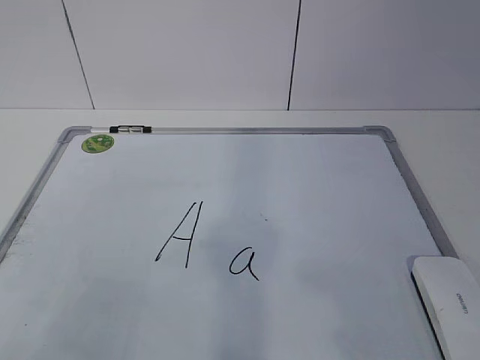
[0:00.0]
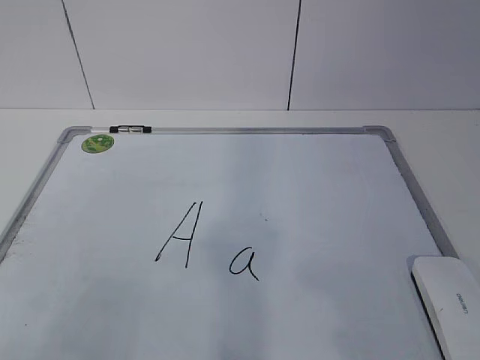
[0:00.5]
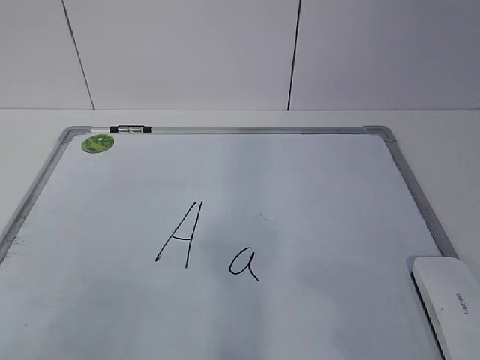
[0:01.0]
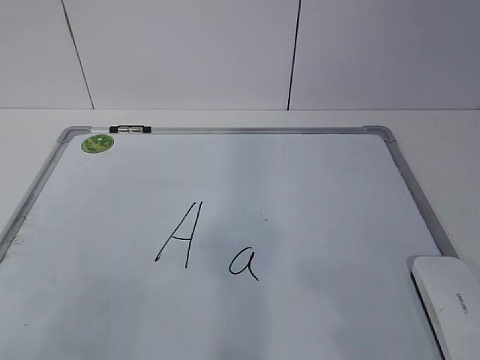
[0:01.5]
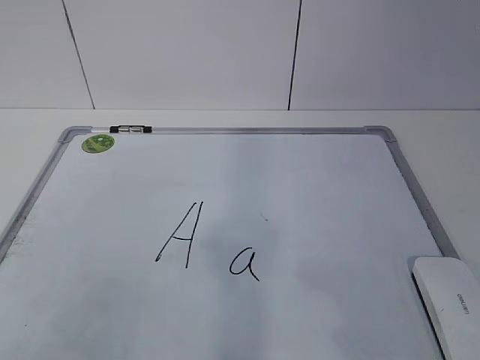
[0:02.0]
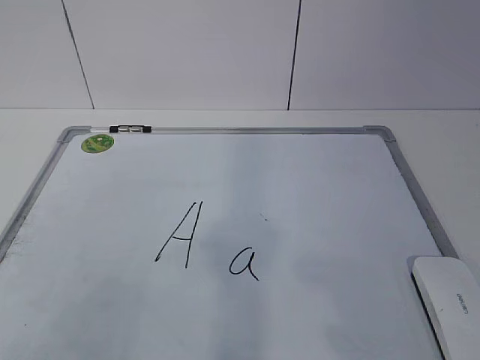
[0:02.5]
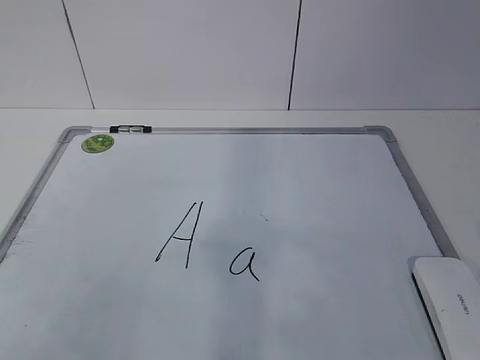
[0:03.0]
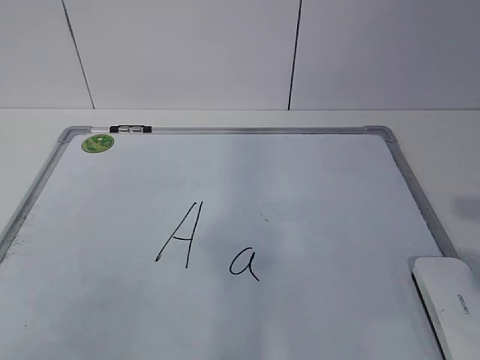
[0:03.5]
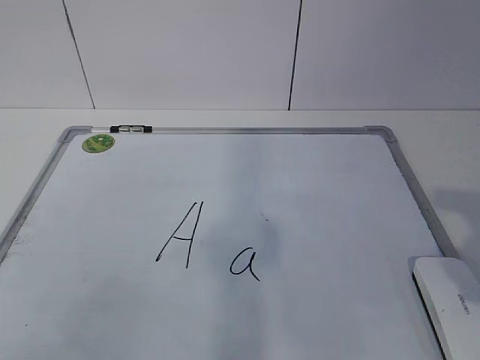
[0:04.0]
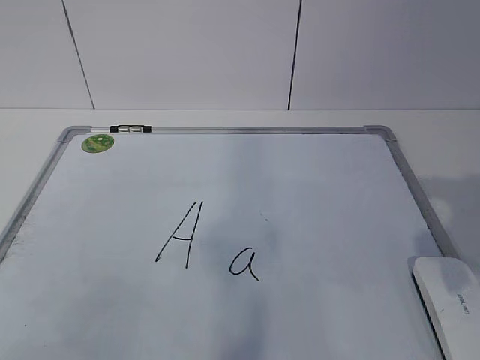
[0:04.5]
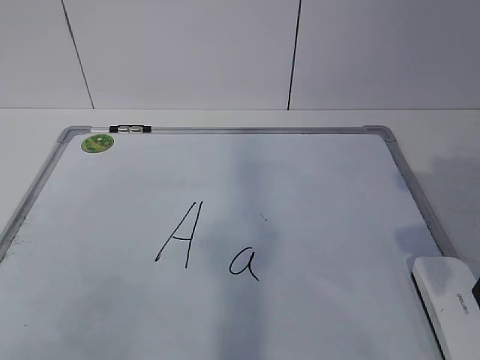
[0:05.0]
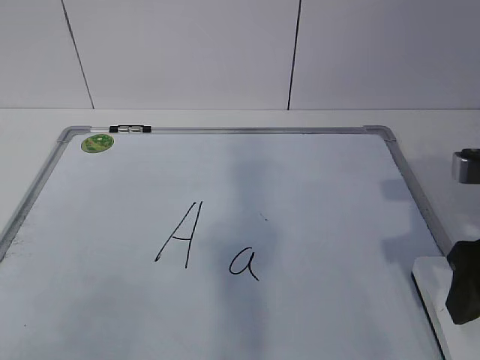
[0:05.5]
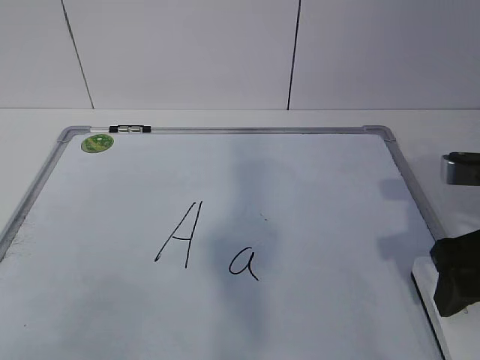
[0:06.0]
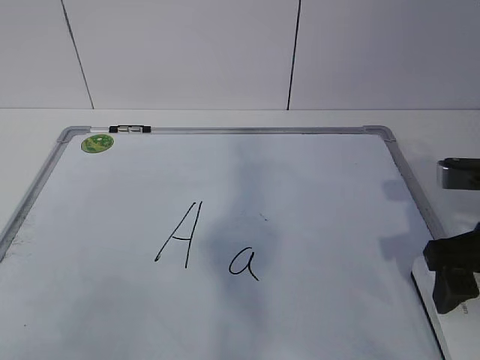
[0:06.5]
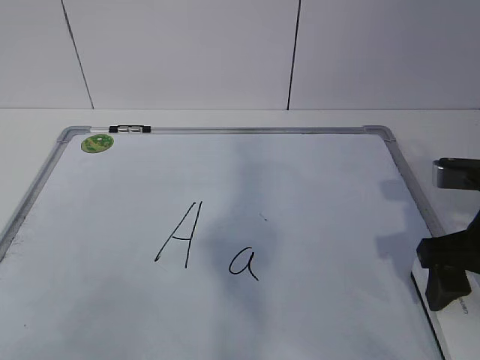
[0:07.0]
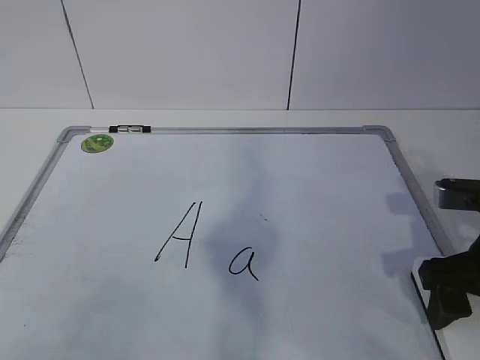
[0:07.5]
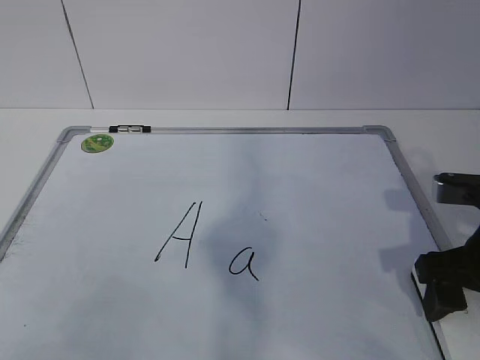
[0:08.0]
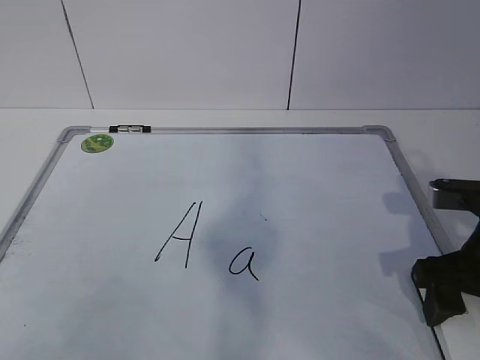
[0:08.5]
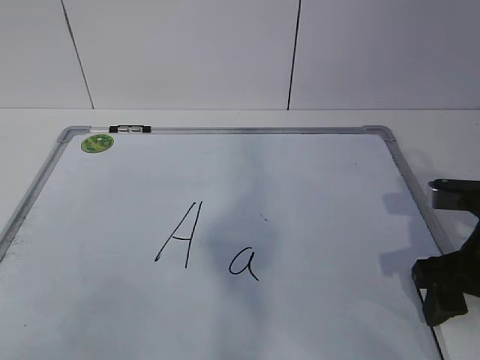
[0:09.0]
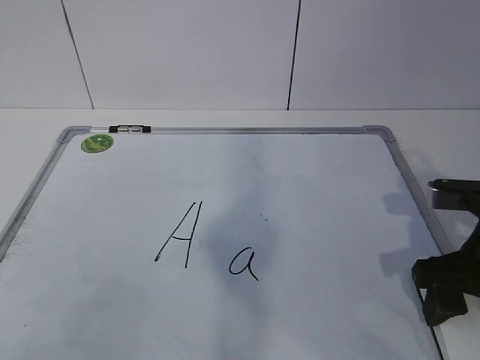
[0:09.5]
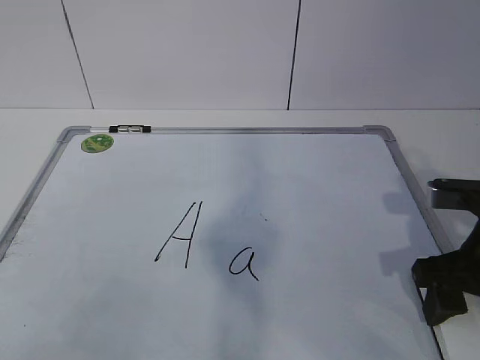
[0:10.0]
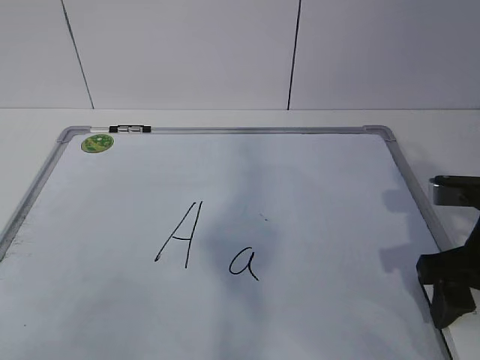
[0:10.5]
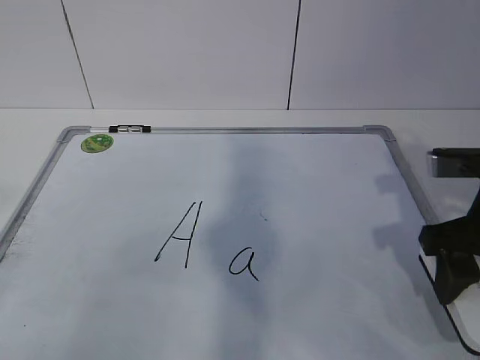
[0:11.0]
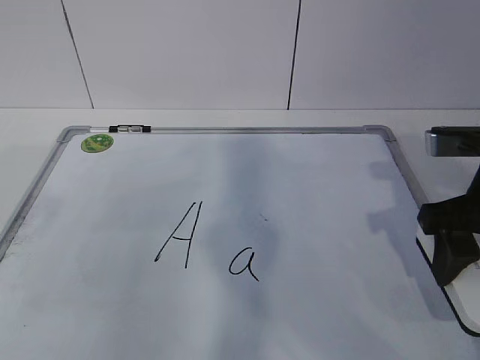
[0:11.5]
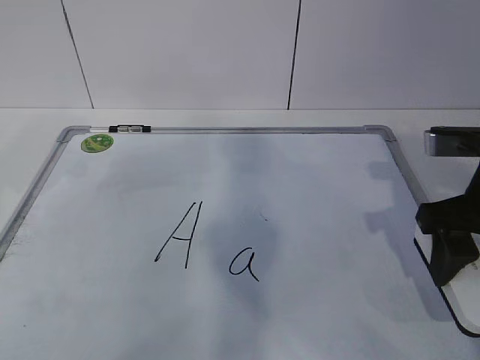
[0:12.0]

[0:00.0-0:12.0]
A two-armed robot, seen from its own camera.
Task of the whole recording: pick up the eraser on the blackboard and erase the letter "a".
Step, 0:00.0 to 0:07.0: Grab the eraser with your right hand.
Step, 0:07.5 to 0:12.0: Hold the drawing board steady with your left hand.
0:04.0 to 0:06.0: The right gripper is displaced forward and downward by some 15 cm.
0:06.0 to 0:08.0: There are only small adjustments of the grippers.
0:08.0 to 0:10.0: The right gripper closes its fingers.
0:10.0 to 0:12.0: The right gripper is displaced upward by some 5 cm.

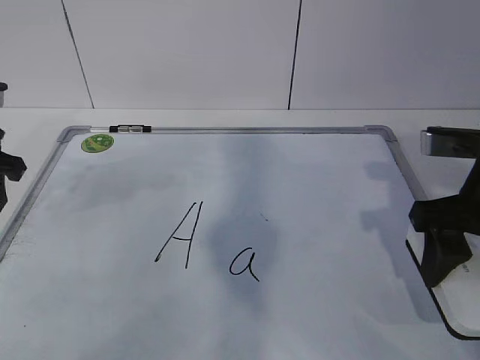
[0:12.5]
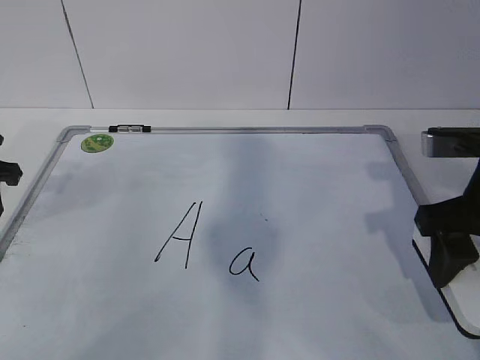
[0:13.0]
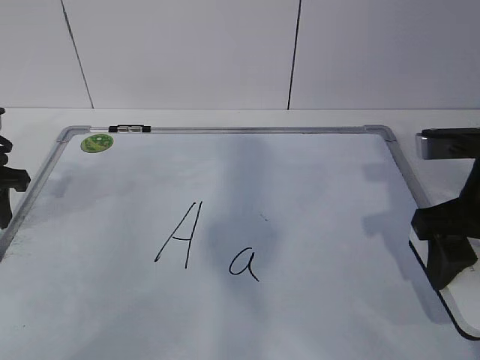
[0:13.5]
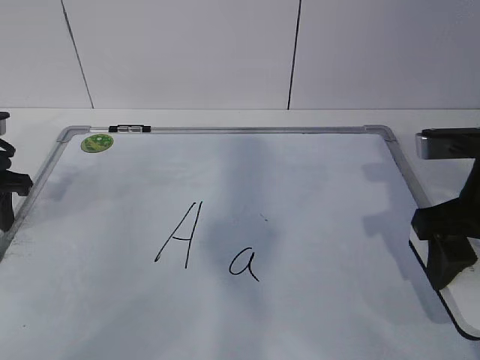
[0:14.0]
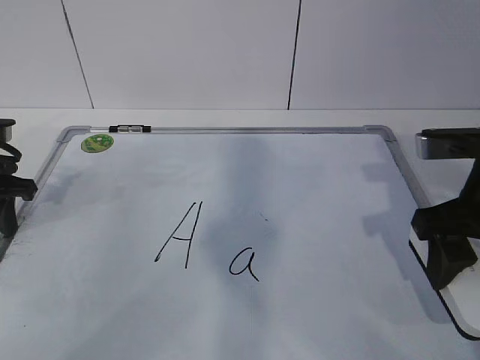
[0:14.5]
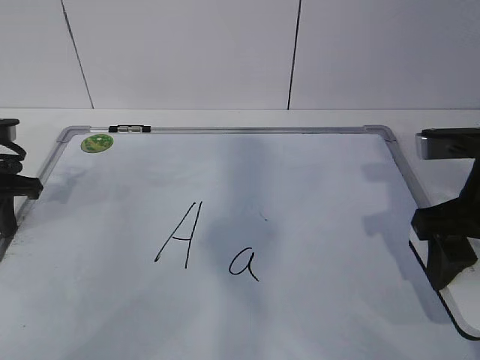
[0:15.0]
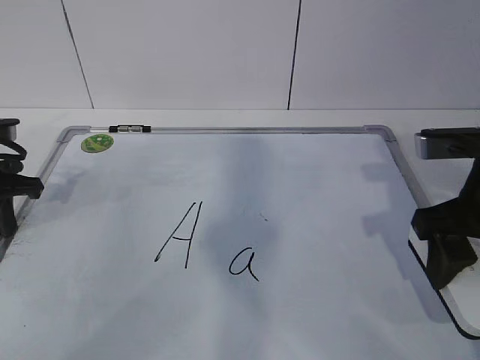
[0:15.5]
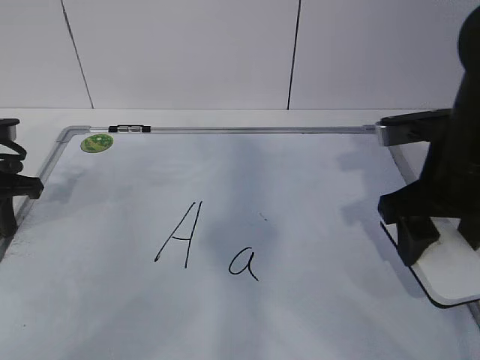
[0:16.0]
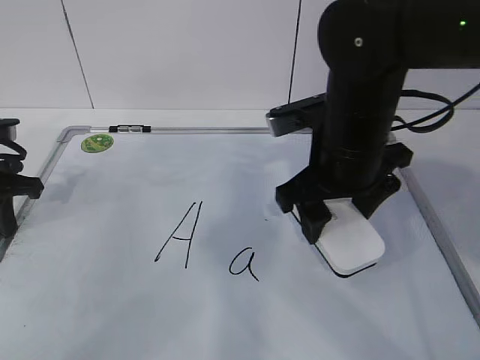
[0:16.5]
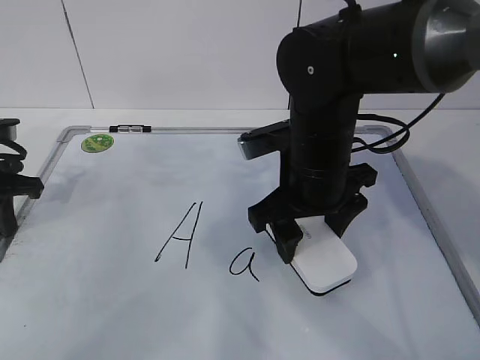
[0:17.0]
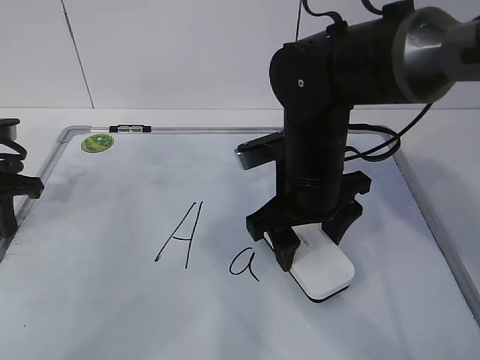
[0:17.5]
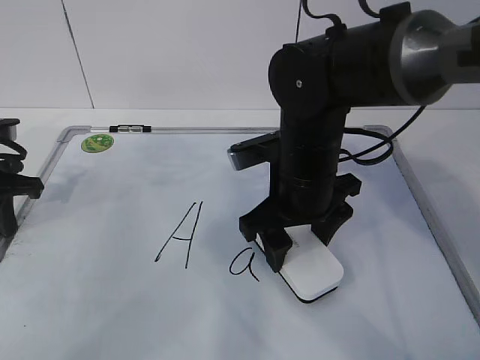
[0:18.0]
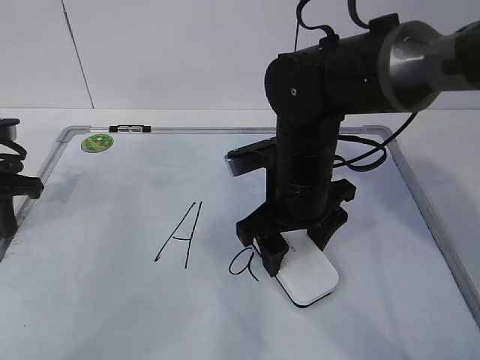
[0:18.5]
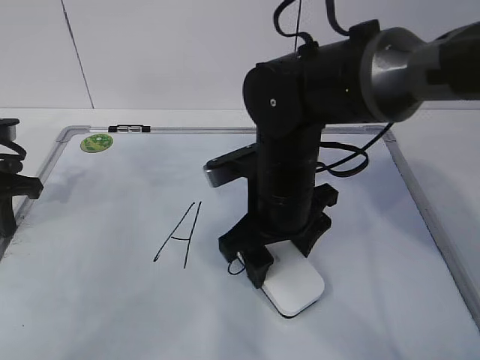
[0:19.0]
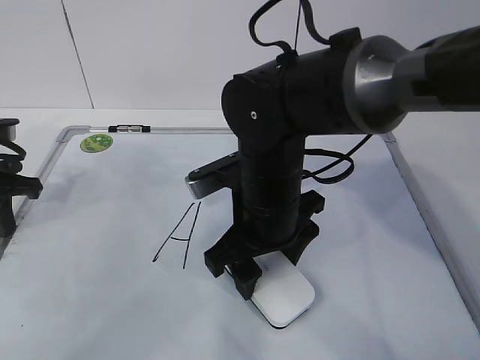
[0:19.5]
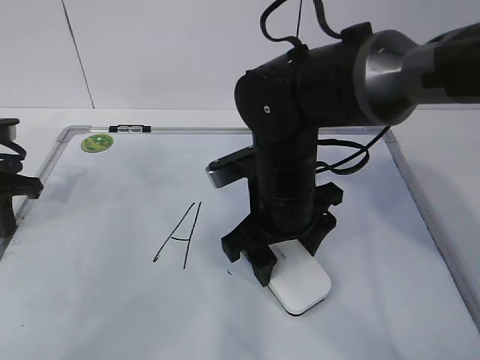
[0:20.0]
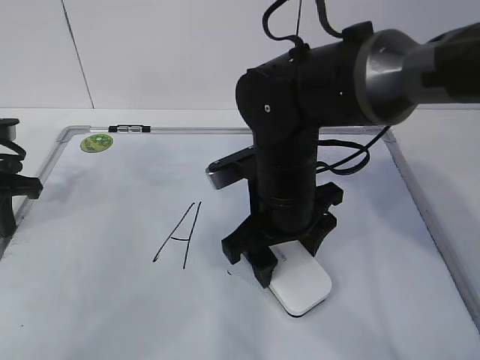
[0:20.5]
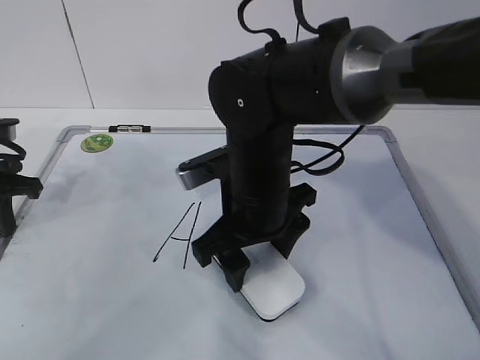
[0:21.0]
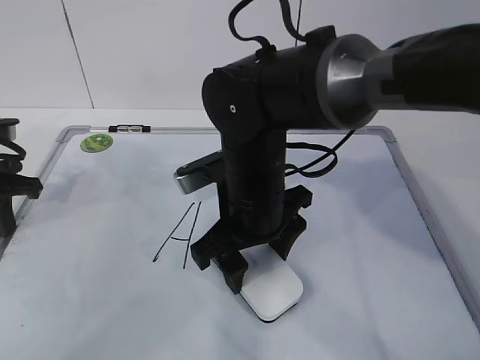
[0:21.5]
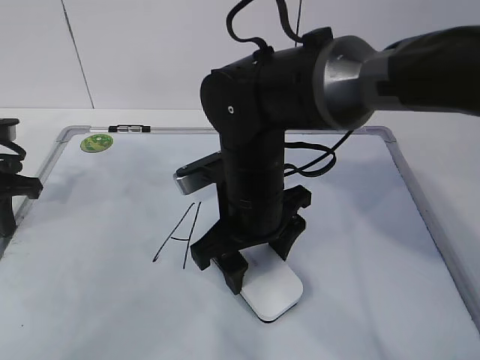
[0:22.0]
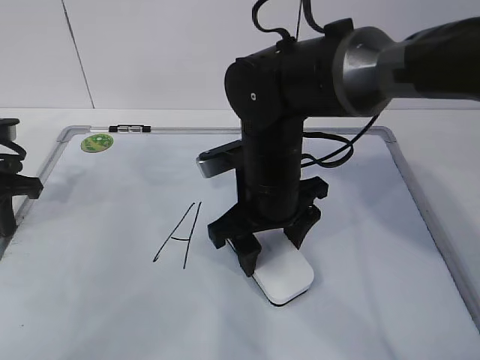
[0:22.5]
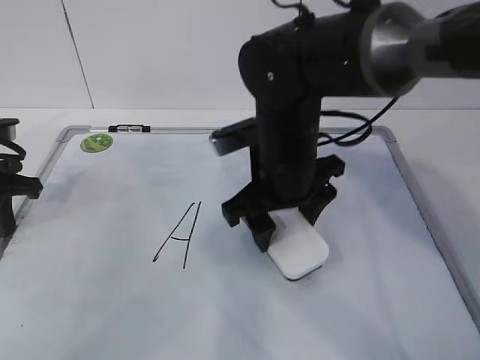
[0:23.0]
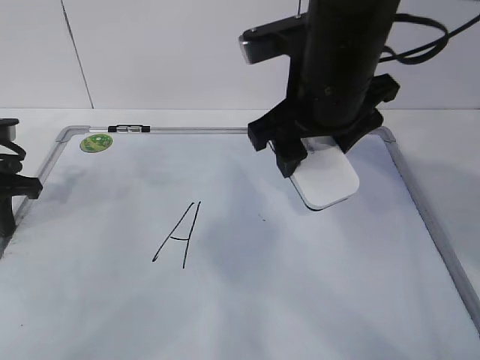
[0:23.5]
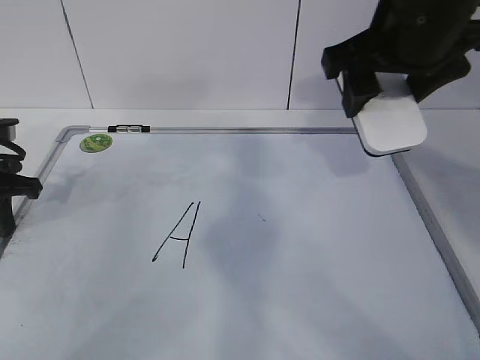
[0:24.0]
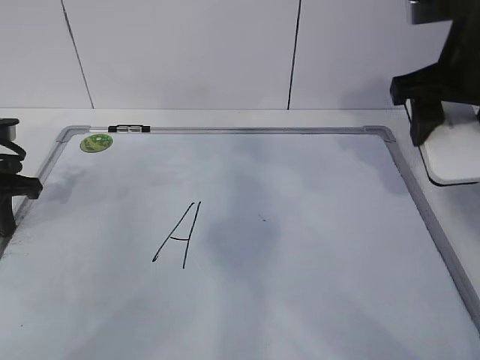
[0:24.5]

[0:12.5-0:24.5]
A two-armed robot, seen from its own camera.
Task of the whole recording: pick up the eraser on the blackboard and erase the letter "a".
Step, 0:12.5 to 0:19.0: Erase the letter a with your right hand.
0:12.5 to 0:14.5: The left gripper moves downward, roughly 5 cm.
0:14.5 to 0:16.5: The right gripper heads to the left and forward, covering approximately 15 cm. The left gripper closes its fingers.
0:16.5 to 0:18.5: The right gripper shifts about 5 cm downward.
0:18.5 to 0:22.5: There are only small adjustments of the grippers.
0:22.5 to 0:24.5: The right gripper shifts about 20 cm to the right and upward.

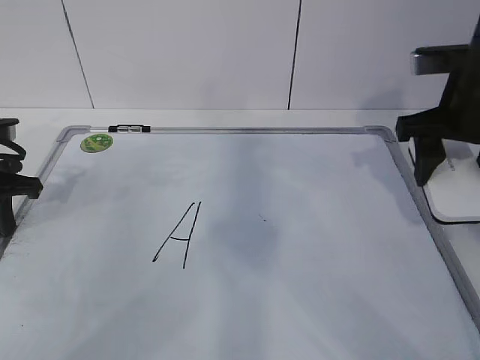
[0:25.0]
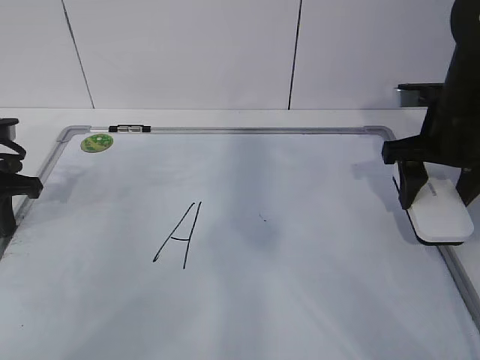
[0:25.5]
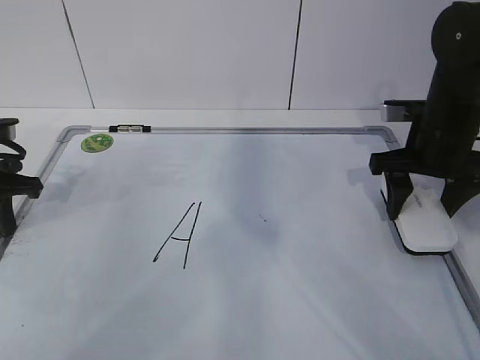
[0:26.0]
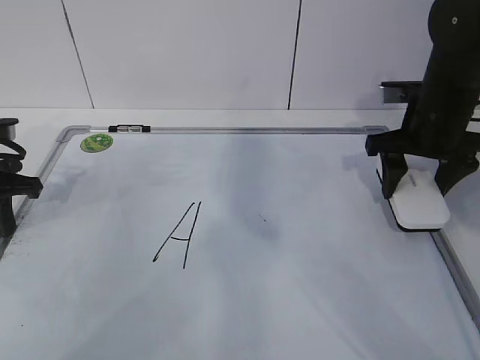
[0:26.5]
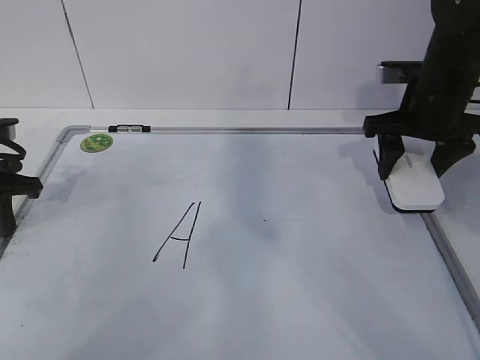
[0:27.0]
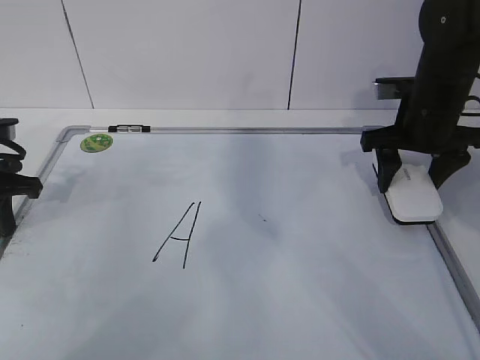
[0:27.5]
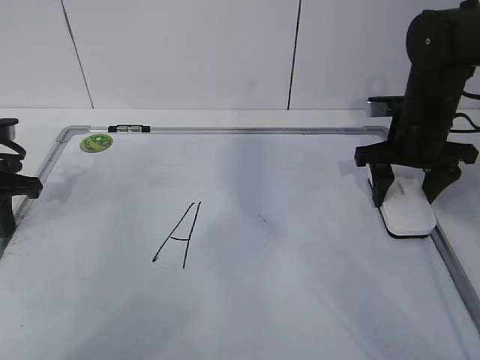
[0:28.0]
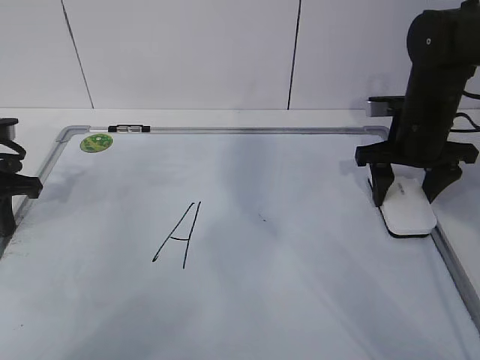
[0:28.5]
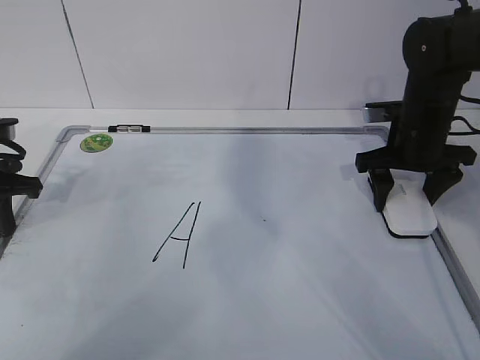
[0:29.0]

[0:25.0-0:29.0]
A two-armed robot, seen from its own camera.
Task of the whole recording: pick up the eraser on the blackboard and erase the letter "a".
Step, 0:25.0 to 0:27.5: Put down the eraser with your right hand.
0:25.0 to 0:27.0: The right gripper travels forward by roughly 5 cm.
0:27.0 to 0:29.0: The right gripper moves downward, roughly 5 cm, and opens.
